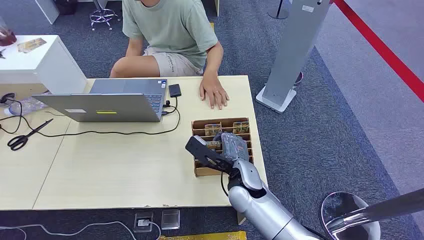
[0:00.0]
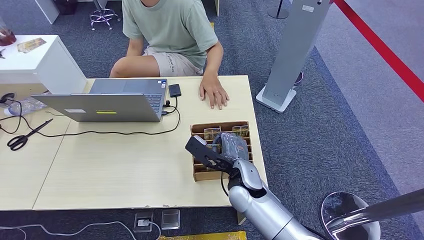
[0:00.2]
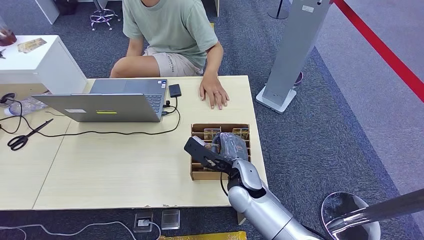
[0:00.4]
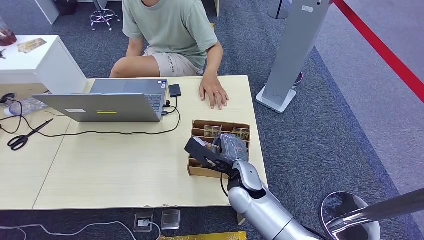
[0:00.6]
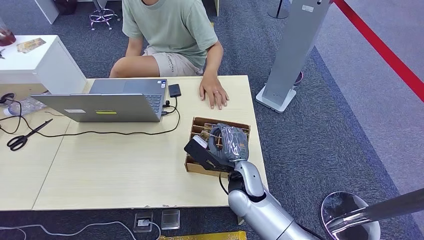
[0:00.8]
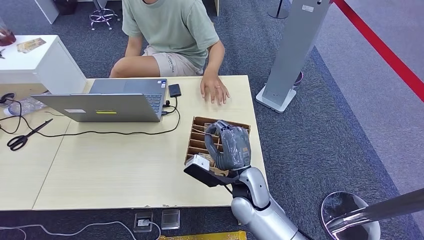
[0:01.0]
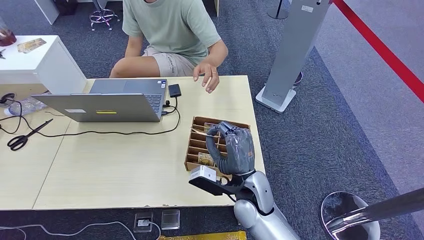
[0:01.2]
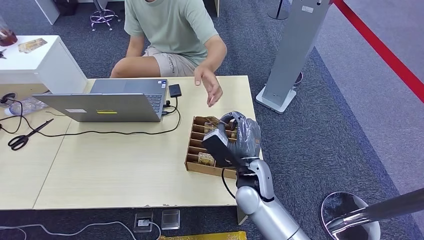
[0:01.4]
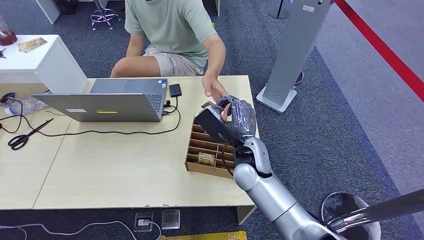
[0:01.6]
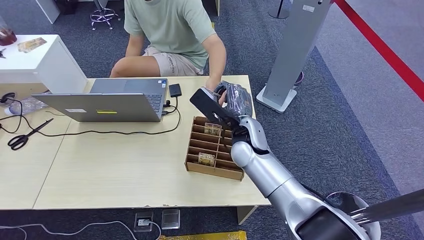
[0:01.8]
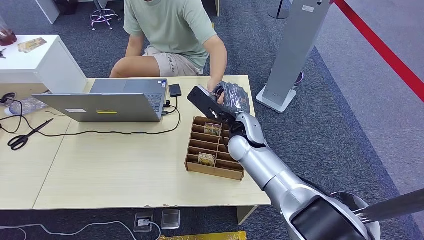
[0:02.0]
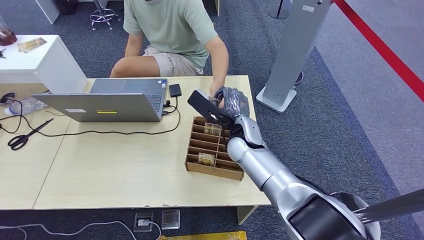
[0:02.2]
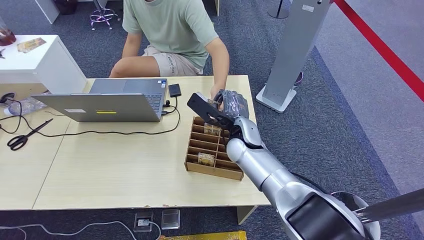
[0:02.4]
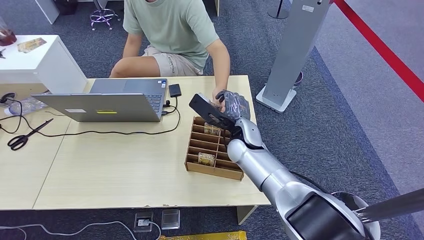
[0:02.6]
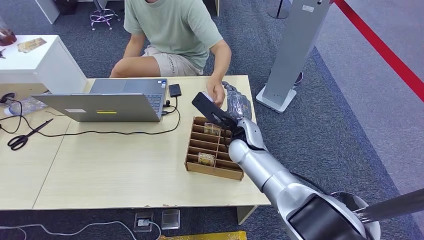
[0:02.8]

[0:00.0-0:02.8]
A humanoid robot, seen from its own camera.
Step, 0:00.0 to 0:01.0: Pick up the room card from the card holder.
Step, 0:01.6 to 0:02.8: Hand the room card to the target.
0:01.4 to 0:02.8: The right hand changes place by about 5 cm.
